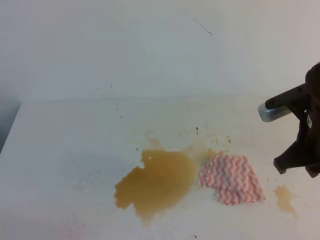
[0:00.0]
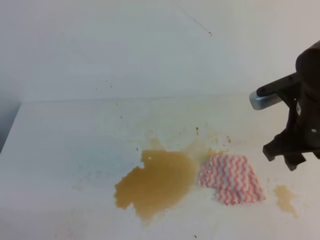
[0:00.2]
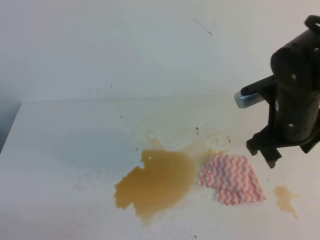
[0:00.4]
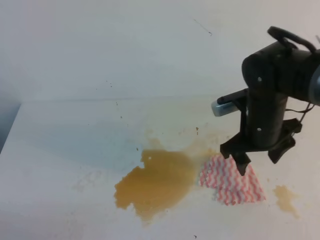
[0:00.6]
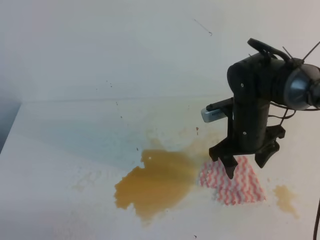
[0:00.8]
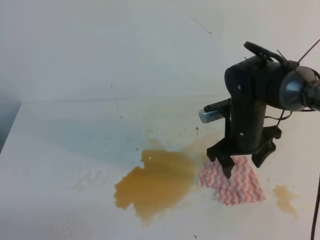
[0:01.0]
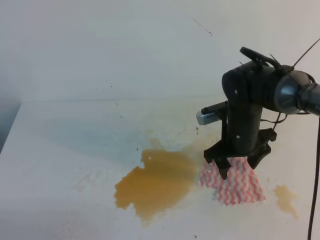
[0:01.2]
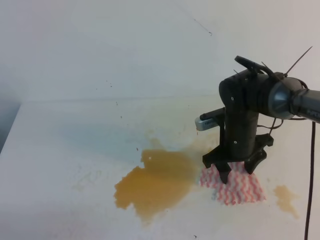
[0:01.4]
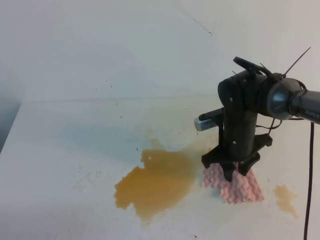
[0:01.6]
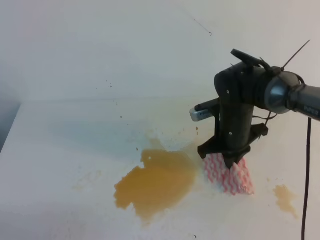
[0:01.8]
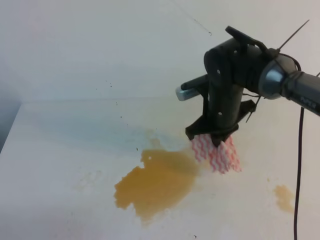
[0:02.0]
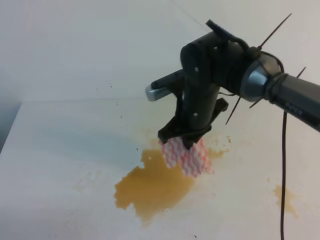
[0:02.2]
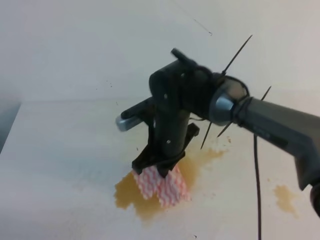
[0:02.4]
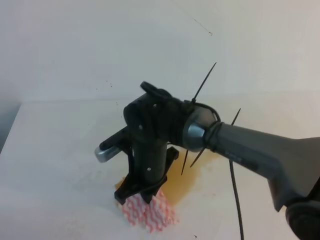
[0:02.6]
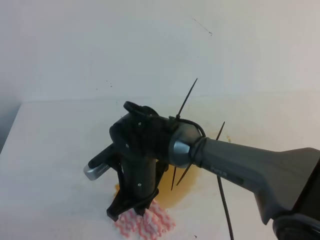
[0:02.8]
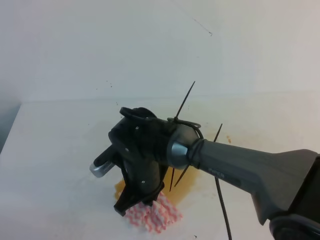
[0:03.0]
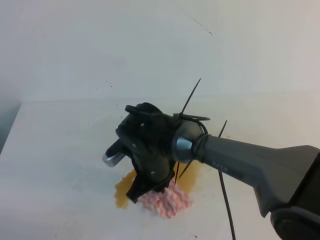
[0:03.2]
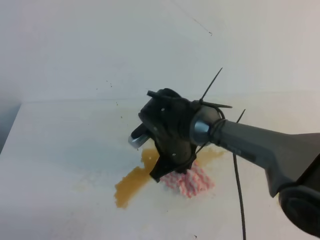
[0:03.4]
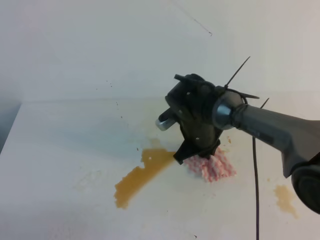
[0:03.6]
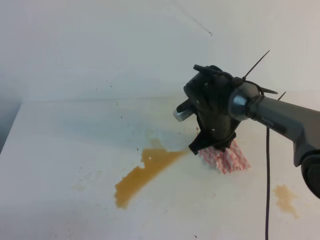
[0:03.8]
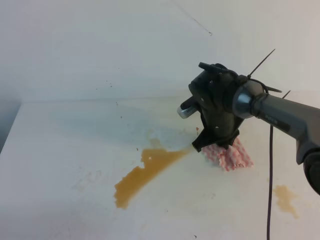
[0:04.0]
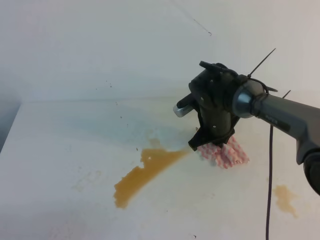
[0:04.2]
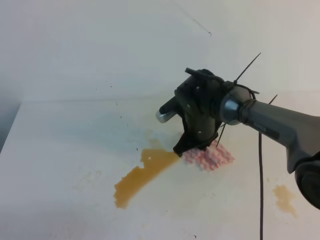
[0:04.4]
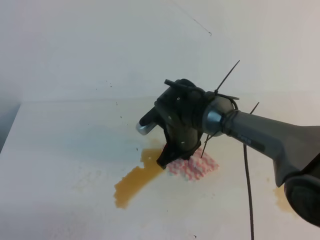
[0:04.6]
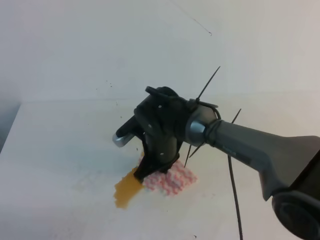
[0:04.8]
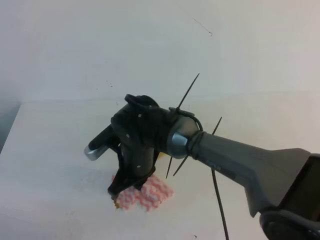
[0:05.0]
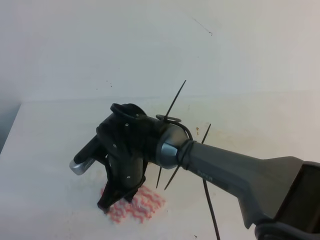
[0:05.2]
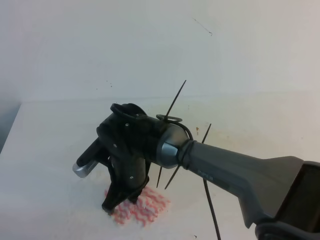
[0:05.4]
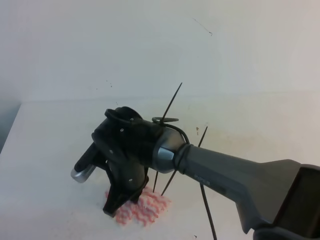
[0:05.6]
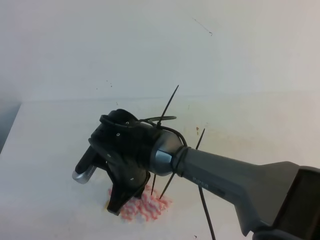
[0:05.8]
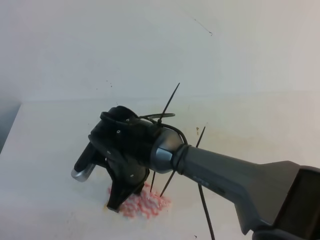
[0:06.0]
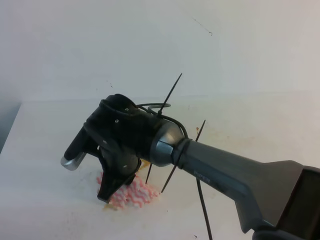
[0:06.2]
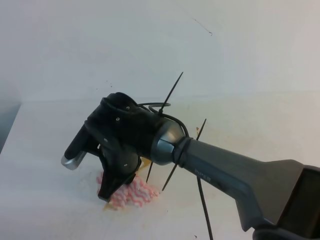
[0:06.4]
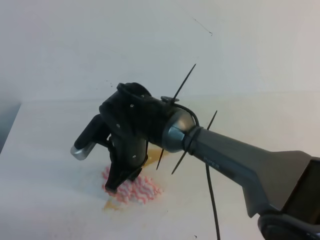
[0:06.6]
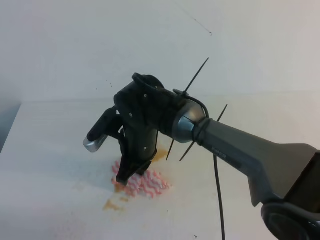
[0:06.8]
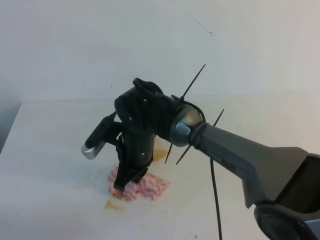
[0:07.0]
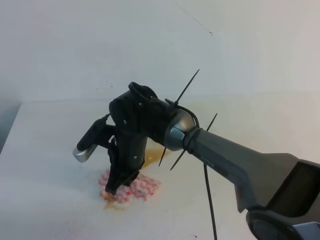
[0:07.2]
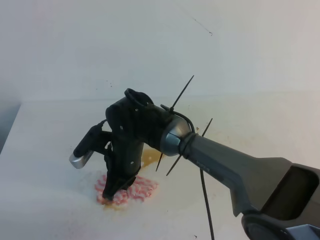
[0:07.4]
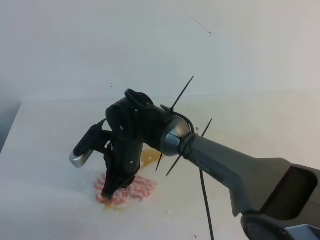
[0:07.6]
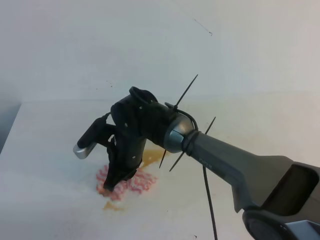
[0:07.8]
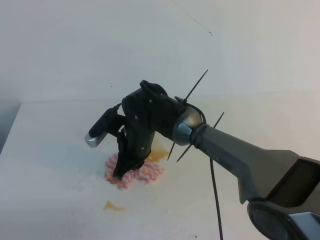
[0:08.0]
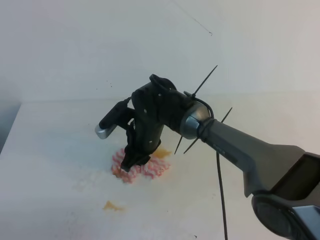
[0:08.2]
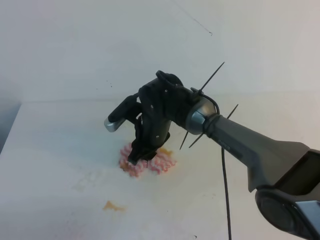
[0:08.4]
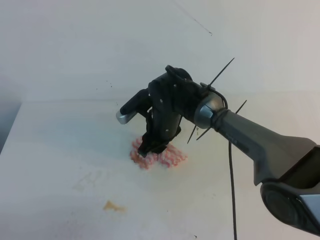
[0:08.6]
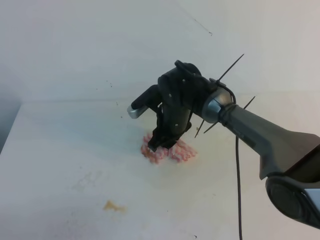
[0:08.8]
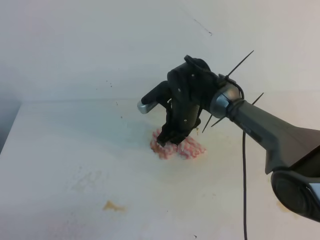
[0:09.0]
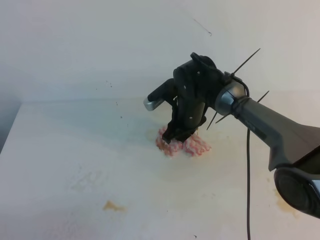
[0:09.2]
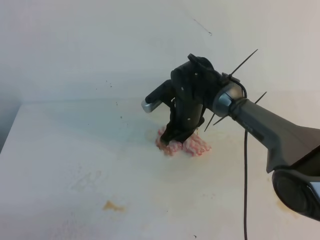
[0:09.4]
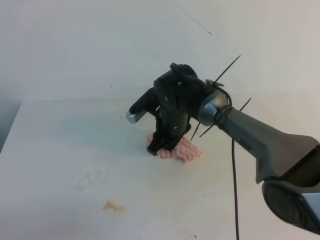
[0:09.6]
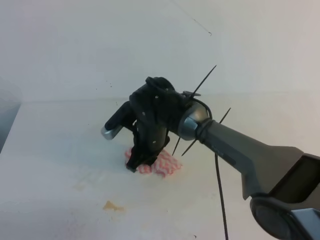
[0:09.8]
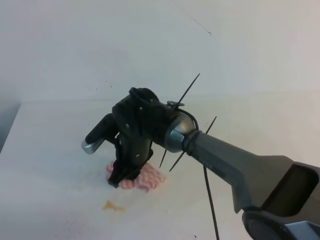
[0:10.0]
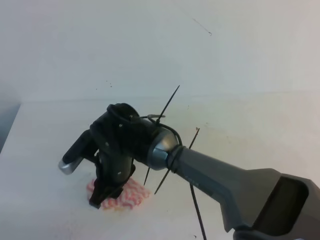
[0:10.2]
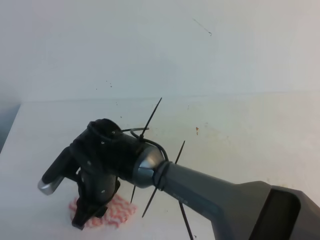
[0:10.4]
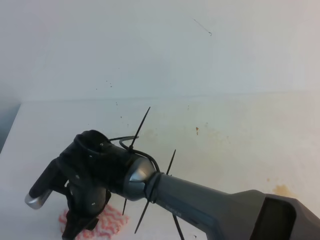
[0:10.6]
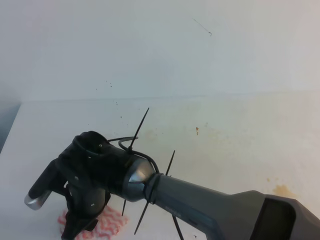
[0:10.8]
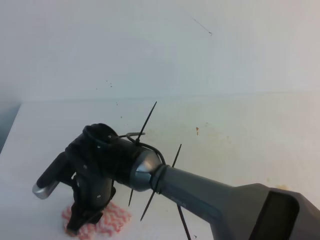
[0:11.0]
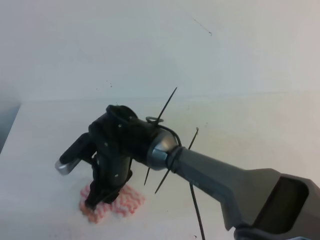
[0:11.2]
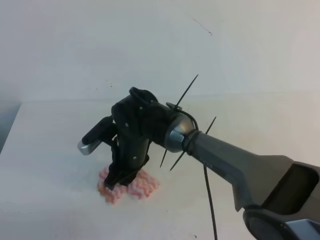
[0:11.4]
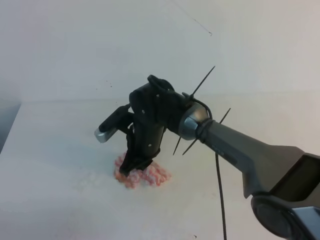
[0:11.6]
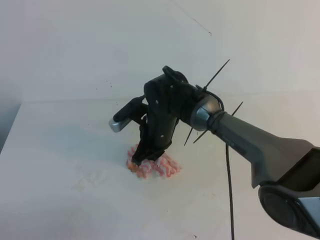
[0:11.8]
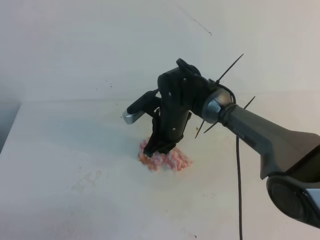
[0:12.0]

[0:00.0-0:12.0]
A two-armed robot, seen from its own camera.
0:00.0 to 0:01.6: The right gripper is displaced downward, forward and to the left by about 20 cm, and opens, then closes again.
0:01.6 to 0:03.0: The right gripper moves to the left and backward, about 20 cm, and closes up.
0:03.0 to 0:04.4: The right gripper heads forward and to the right, covering approximately 15 cm.
0:04.4 to 0:06.0: The right gripper heads to the left and backward, covering about 20 cm.
0:06.0 to 0:07.6: The grippers move only a little.
0:07.6 to 0:09.0: The right gripper goes some 15 cm to the right and forward, and opens.
0:09.0 to 0:10.4: The right gripper goes approximately 20 cm backward and to the left.
0:10.4 to 0:12.0: The right gripper shifts some 20 cm forward and to the right, and closes.

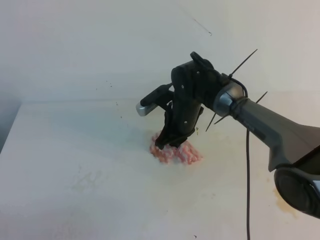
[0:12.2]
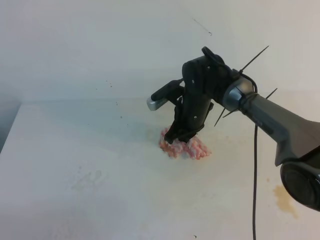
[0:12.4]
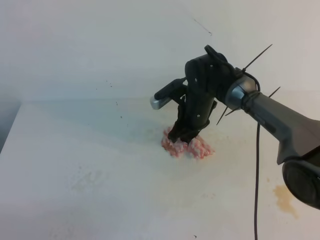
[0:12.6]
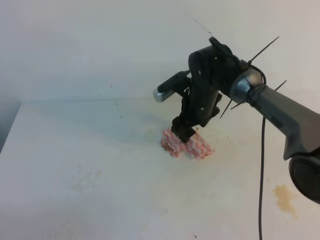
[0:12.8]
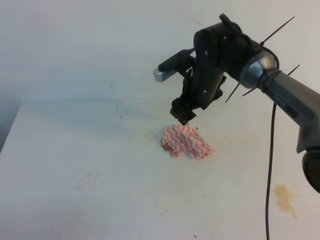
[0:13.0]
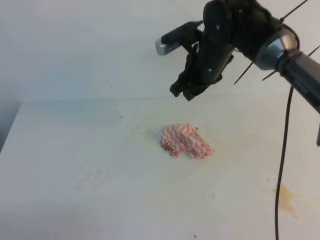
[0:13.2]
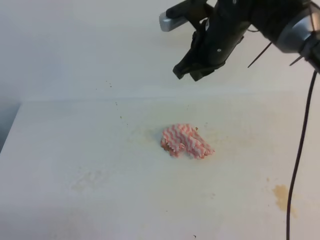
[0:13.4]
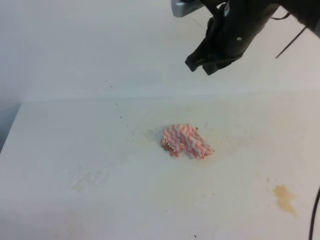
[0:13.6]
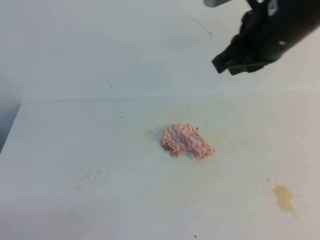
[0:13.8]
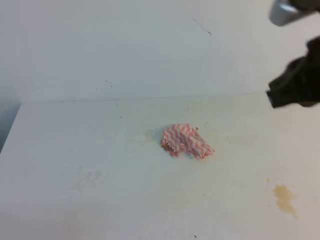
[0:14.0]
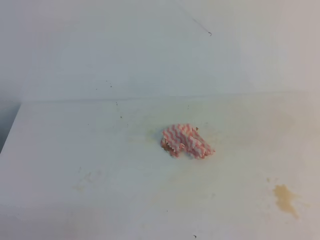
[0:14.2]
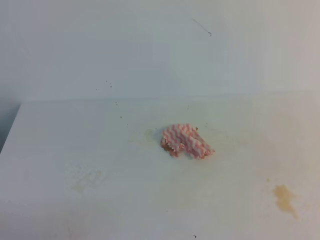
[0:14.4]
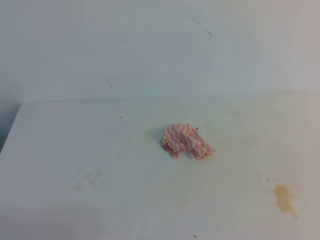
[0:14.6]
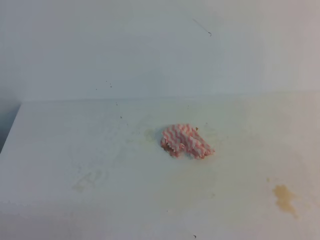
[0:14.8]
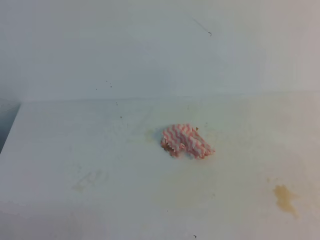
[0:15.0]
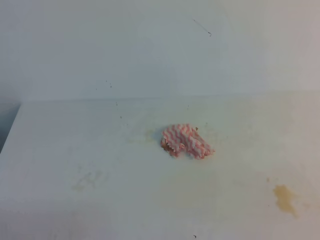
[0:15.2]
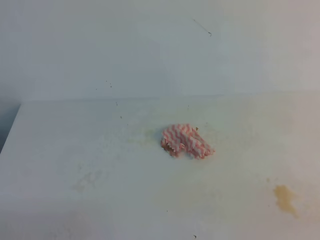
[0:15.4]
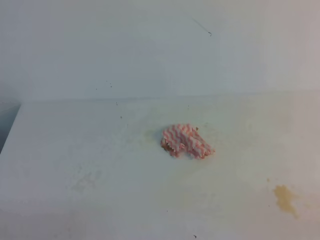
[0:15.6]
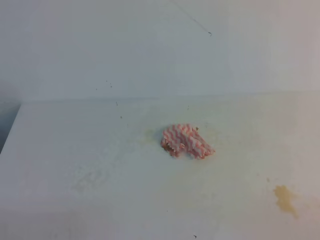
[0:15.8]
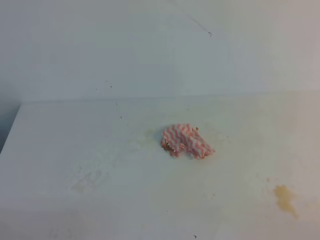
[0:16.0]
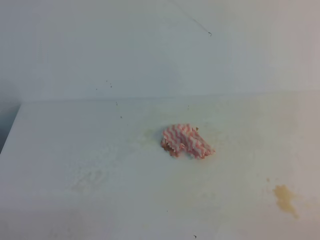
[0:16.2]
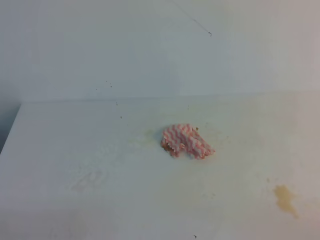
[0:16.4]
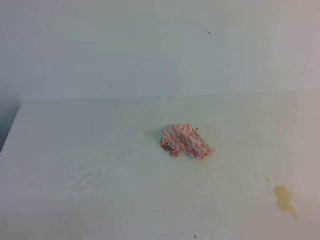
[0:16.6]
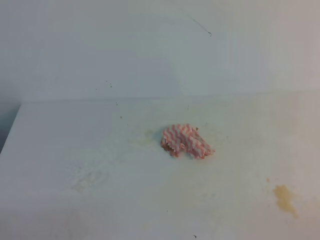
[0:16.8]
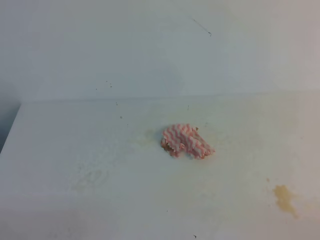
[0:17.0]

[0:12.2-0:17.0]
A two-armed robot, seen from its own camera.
0:12.2 to 0:13.8: The right gripper goes some 30 cm upward, to the right and backward, and opens and closes again.
0:13.8 to 0:15.4: The right gripper is displaced backward, to the right and downward by some 40 cm.
